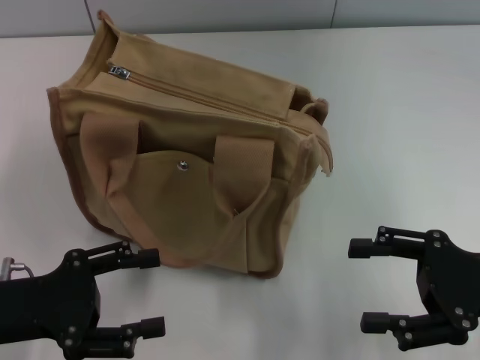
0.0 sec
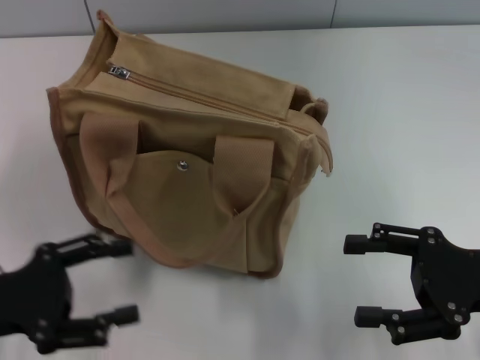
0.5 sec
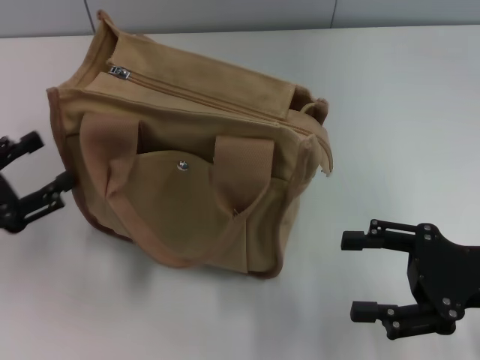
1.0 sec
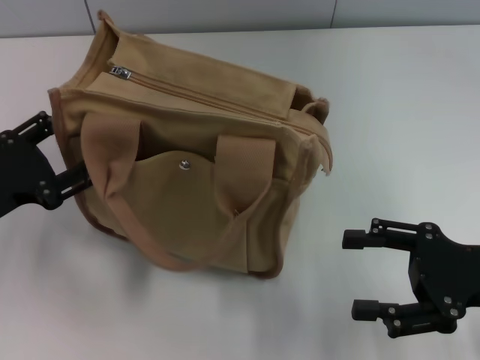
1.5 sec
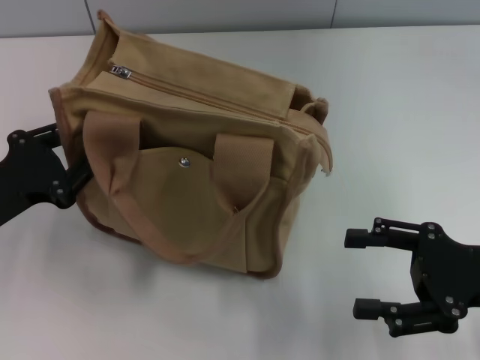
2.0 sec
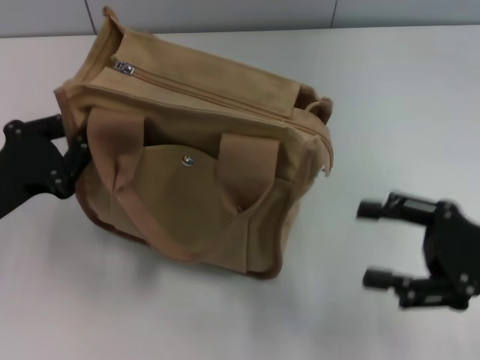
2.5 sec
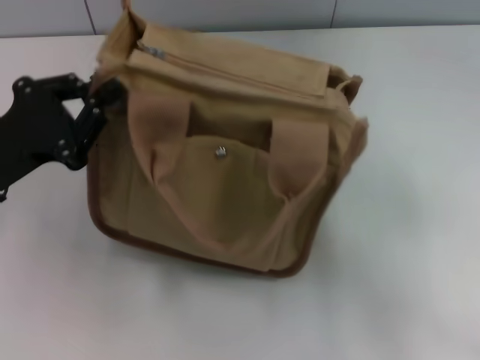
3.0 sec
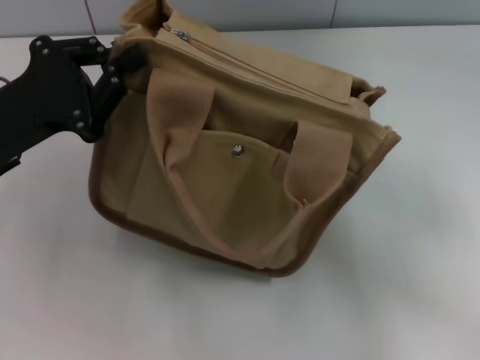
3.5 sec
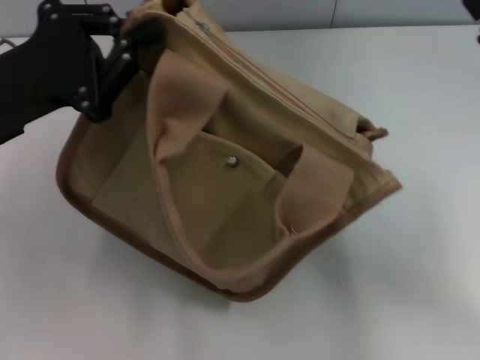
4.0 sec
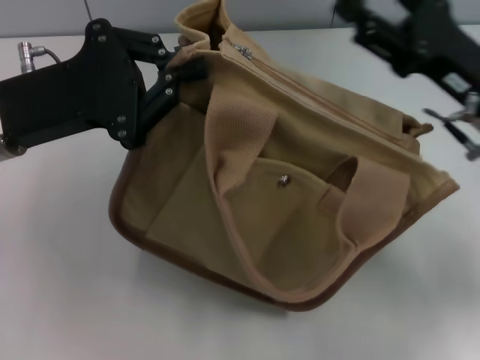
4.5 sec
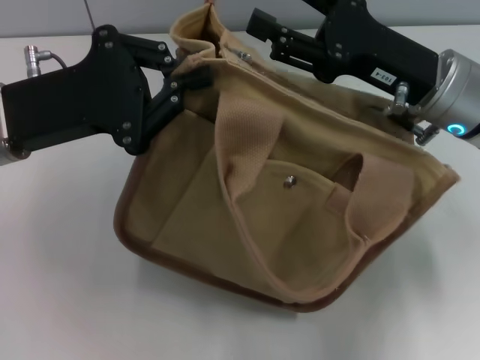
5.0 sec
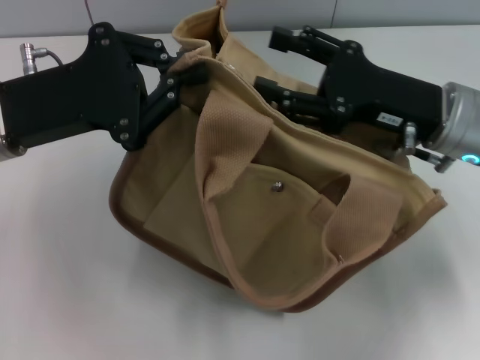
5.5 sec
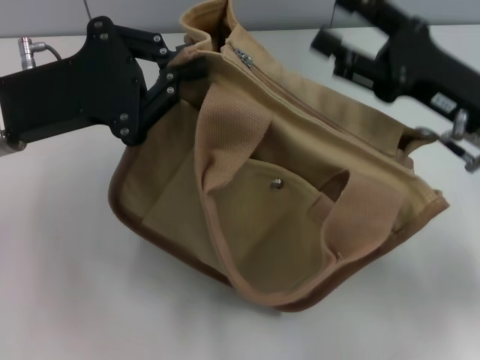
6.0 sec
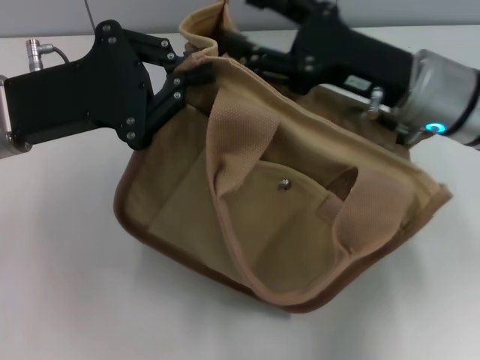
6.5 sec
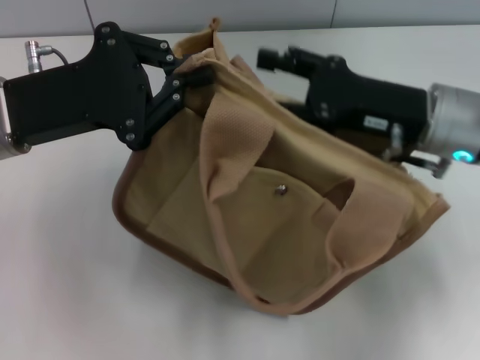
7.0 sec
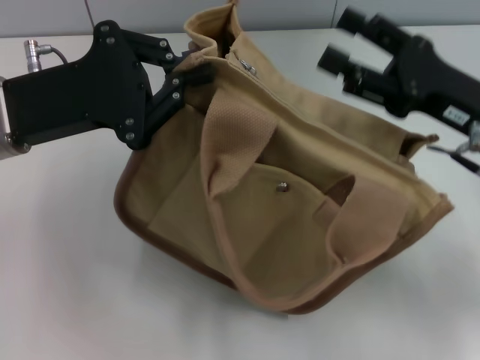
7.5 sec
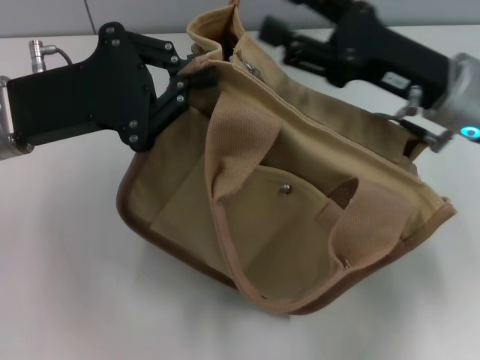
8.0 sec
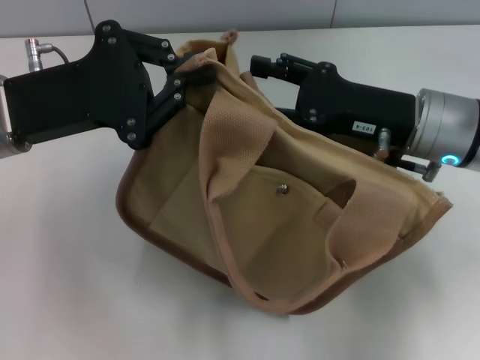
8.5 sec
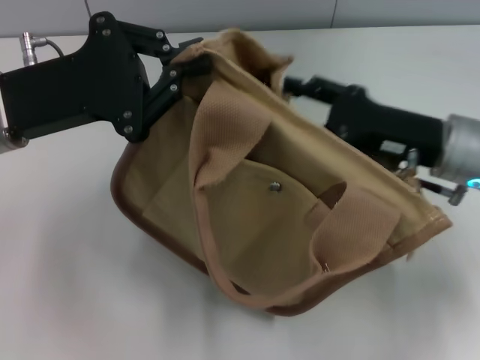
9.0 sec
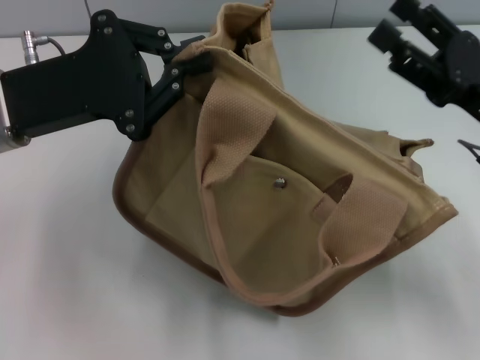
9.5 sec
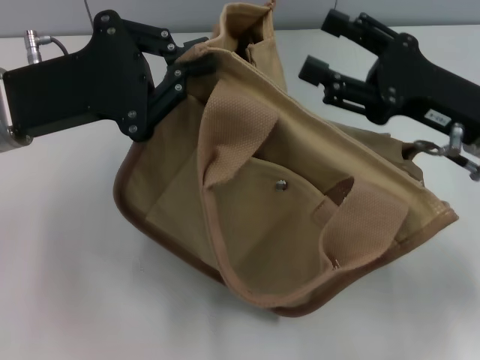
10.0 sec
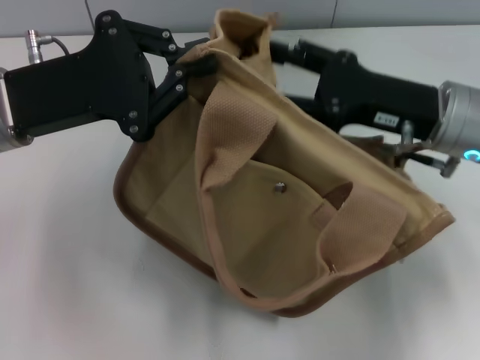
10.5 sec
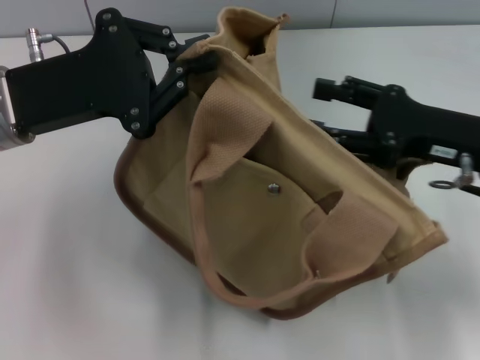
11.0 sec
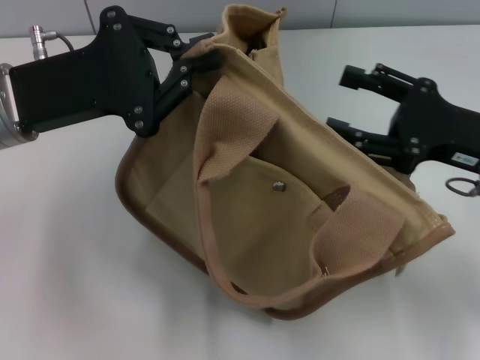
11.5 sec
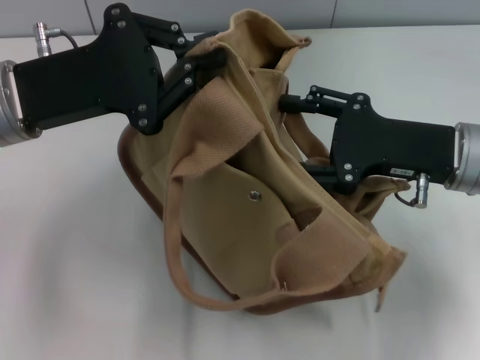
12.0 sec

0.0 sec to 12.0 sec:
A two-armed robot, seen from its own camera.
0.0 sec to 2.0 sec: The left gripper shifts by about 5 cm, and closes.
2.0 sec to 4.0 sec: The right gripper is displaced forward by some 5 cm. The left gripper shifts roughly 10 cm upward and forward, and closes.
4.0 sec to 6.0 sec: The right gripper is displaced to the left by some 5 cm.
6.0 sec to 8.0 sec: The right gripper moves left and right over roughly 5 cm, changing direction 2 times.

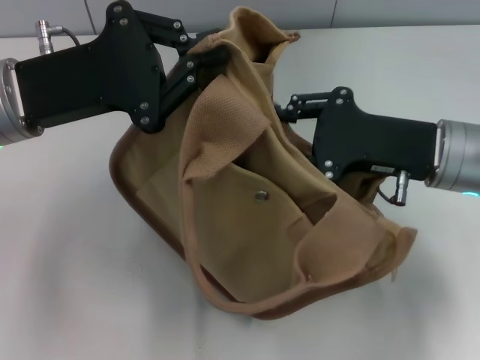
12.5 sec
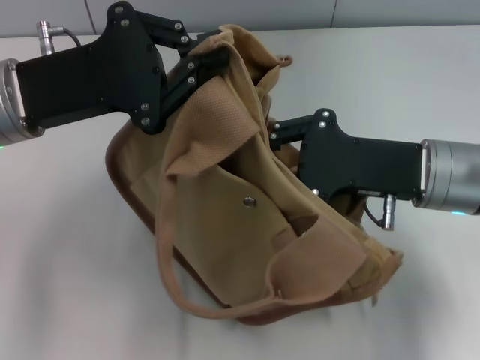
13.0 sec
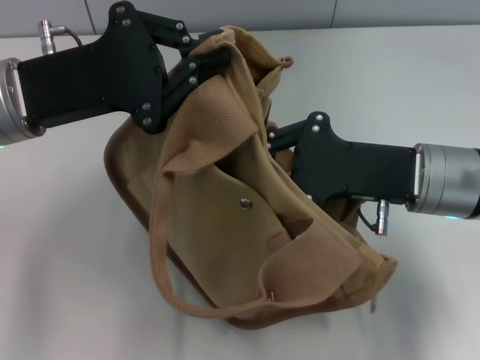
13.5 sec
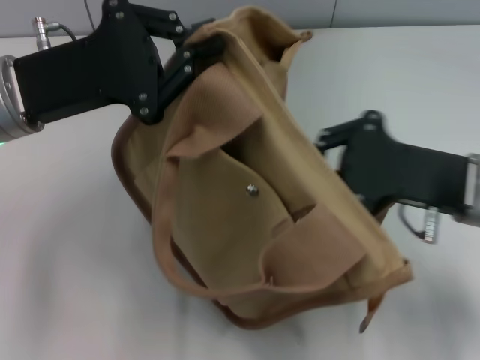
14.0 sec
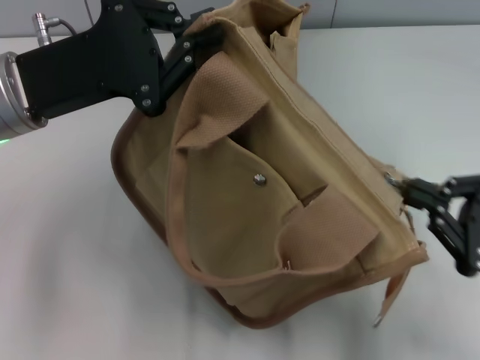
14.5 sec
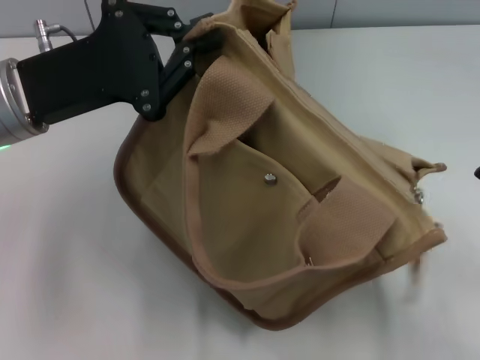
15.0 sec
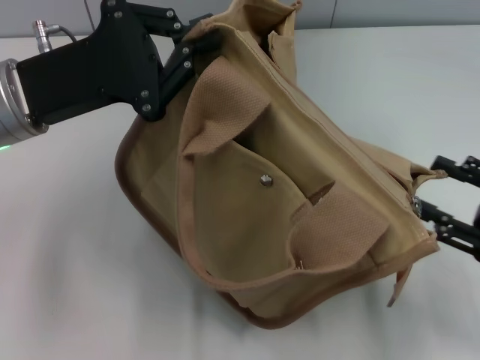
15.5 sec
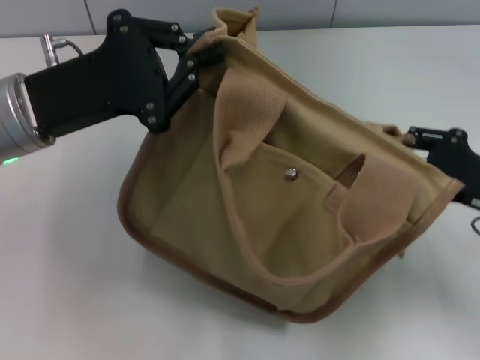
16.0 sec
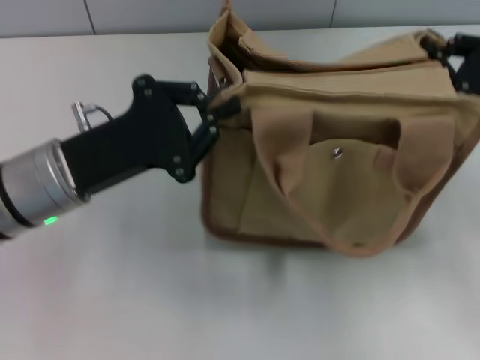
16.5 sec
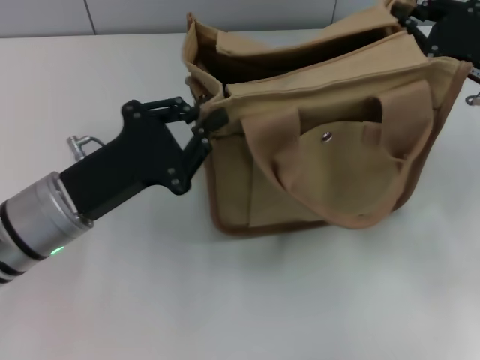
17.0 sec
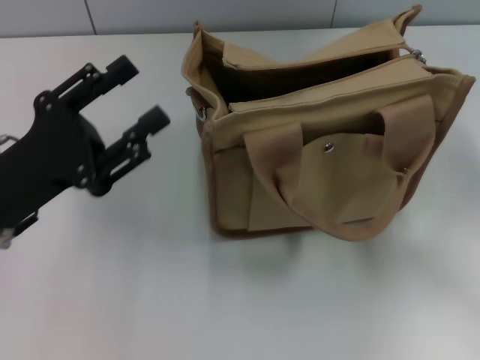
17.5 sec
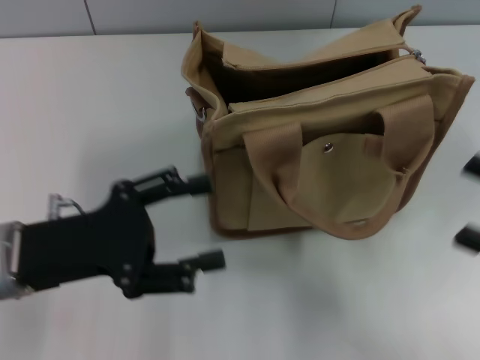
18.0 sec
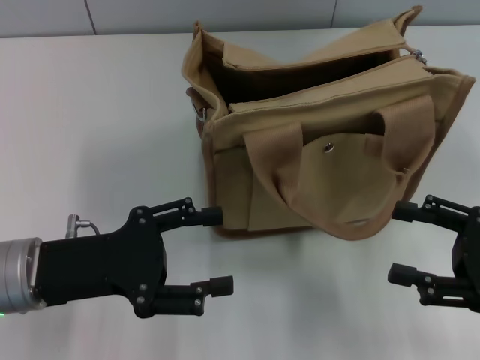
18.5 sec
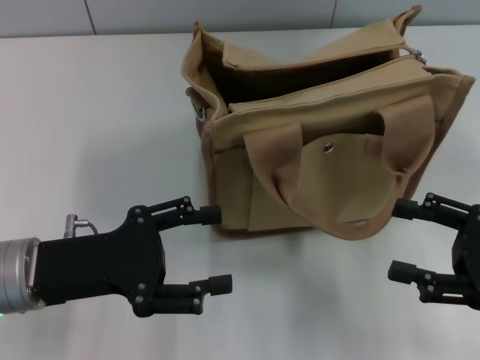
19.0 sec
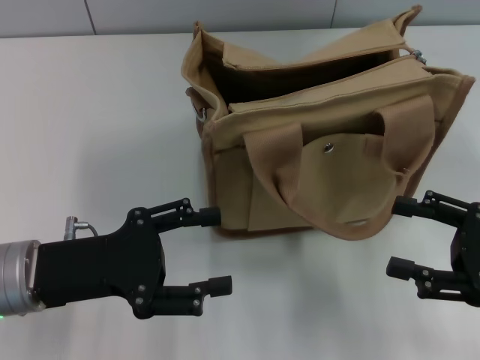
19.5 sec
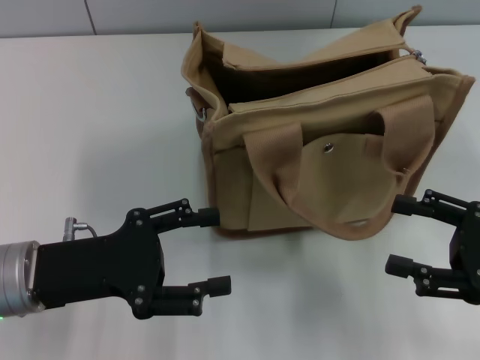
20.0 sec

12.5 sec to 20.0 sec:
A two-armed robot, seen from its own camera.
Step, 12.5 sec to 15.0 sec: Pull open the zipper with your right hand.
Step, 15.5 sec to 17.5 sec: Grab the bag with your left hand.
12.5 sec to 14.5 sec: The right gripper heads to the right and backward, covering some 15 cm, and closes.
14.5 sec to 16.5 sec: The right gripper goes about 10 cm forward, and opens, then closes again, while the left gripper heads downward, covering approximately 5 cm.
16.5 sec to 18.0 sec: The right gripper moves backward, some 15 cm, and opens up. The left gripper goes approximately 5 cm backward, and opens.
18.0 sec to 20.0 sec: The grippers stay close to where they were, moving slightly.

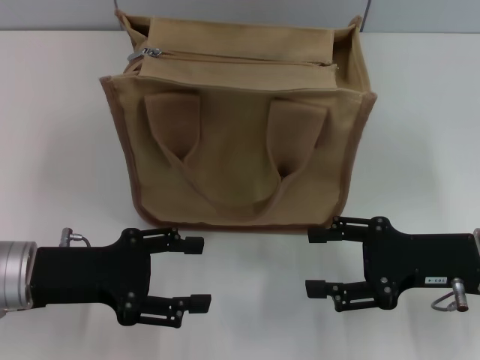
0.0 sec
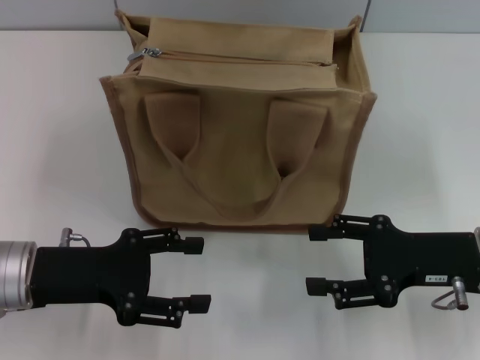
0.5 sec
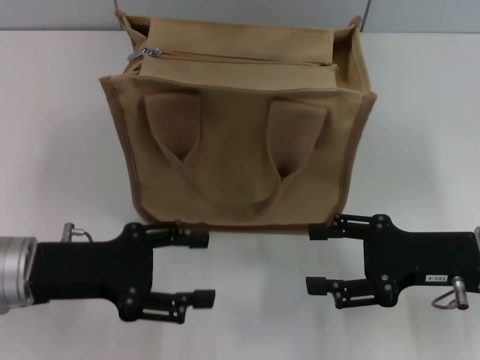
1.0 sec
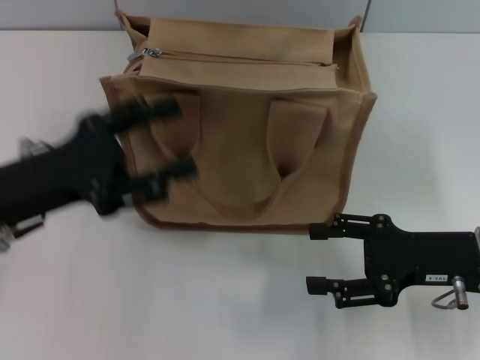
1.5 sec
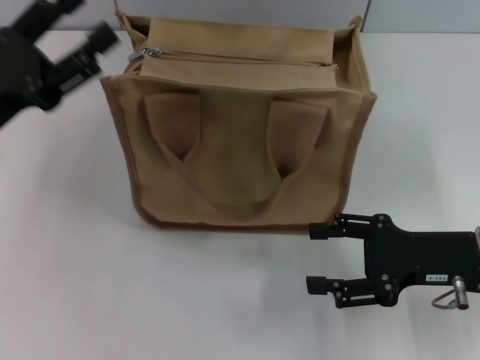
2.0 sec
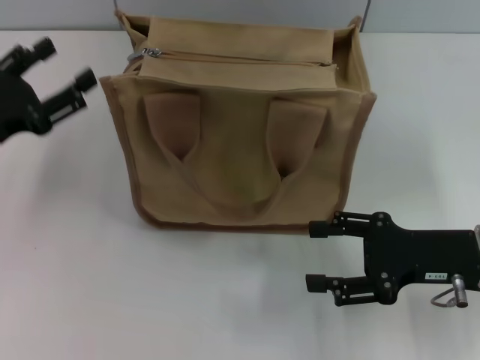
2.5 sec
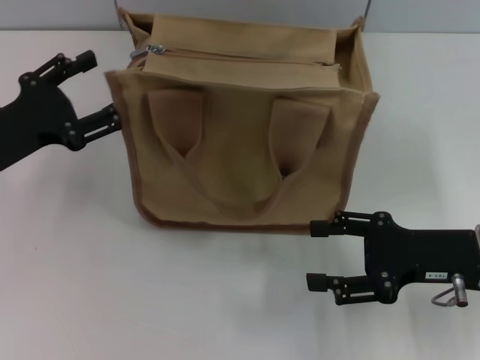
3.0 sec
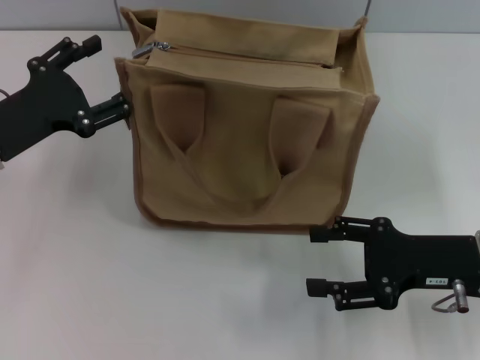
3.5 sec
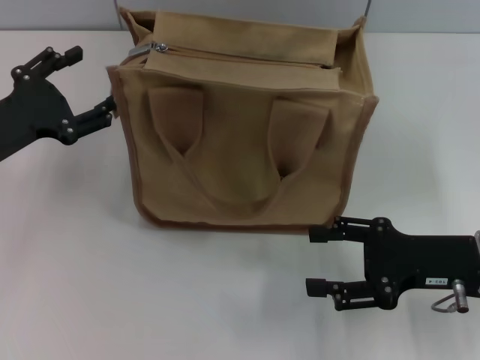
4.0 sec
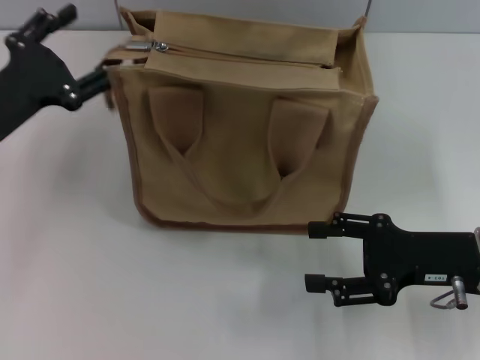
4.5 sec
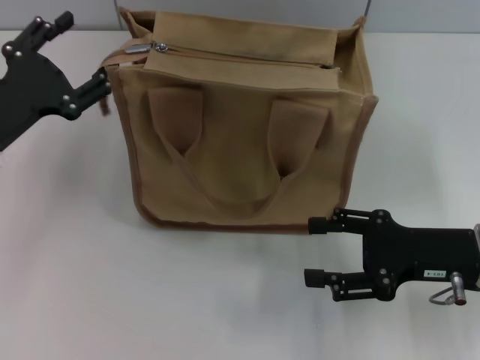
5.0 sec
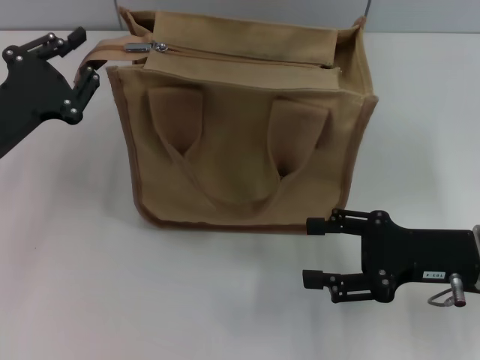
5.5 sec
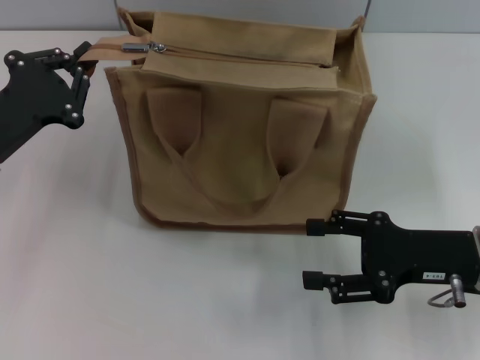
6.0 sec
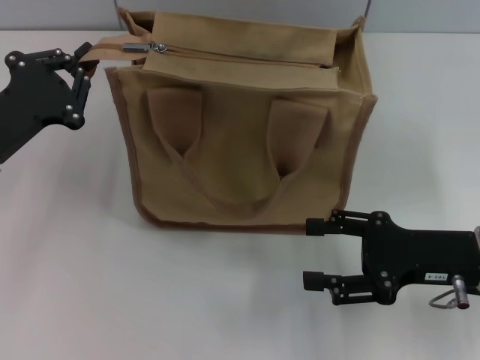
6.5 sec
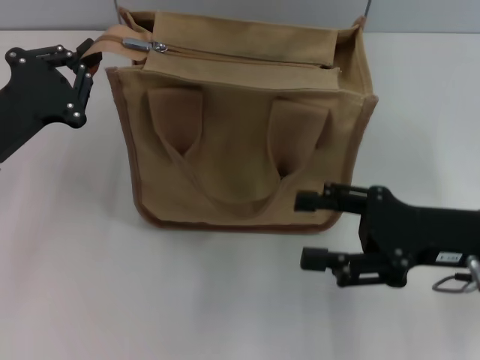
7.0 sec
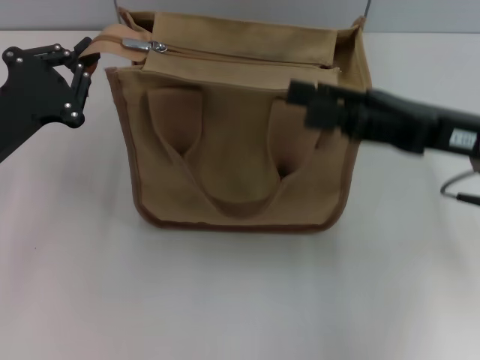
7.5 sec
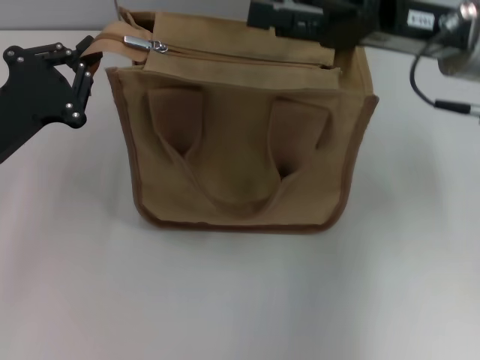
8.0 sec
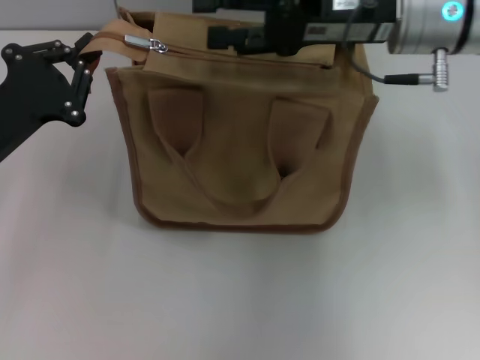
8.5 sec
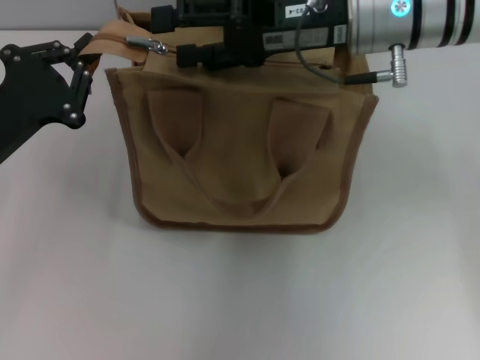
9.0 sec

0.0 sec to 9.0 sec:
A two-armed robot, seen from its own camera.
0.0 sec to 2.0 sec: The left gripper travels upward by about 5 cm.
4.5 sec to 7.0 sec: The left gripper closes up.
7.0 sec to 9.0 sec: The right gripper heads forward, to the left and upward, covering some 20 cm.
